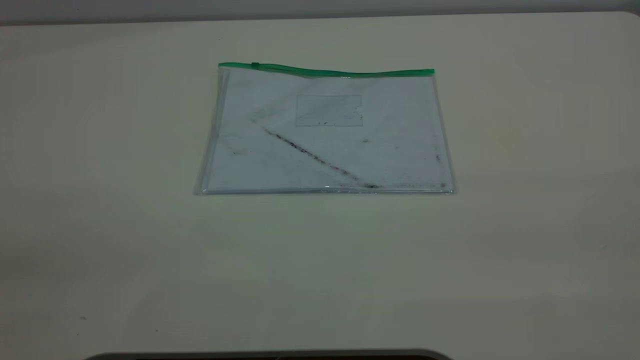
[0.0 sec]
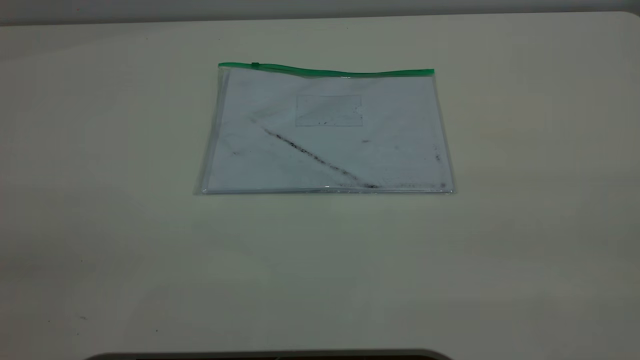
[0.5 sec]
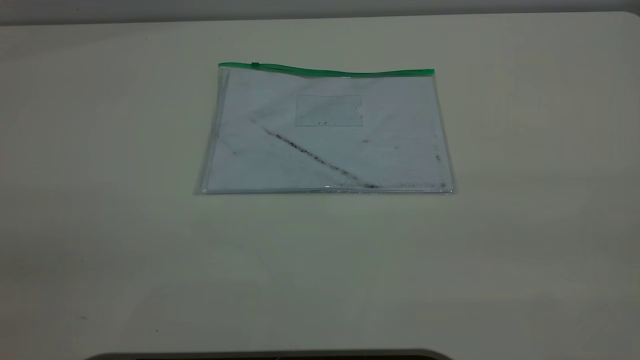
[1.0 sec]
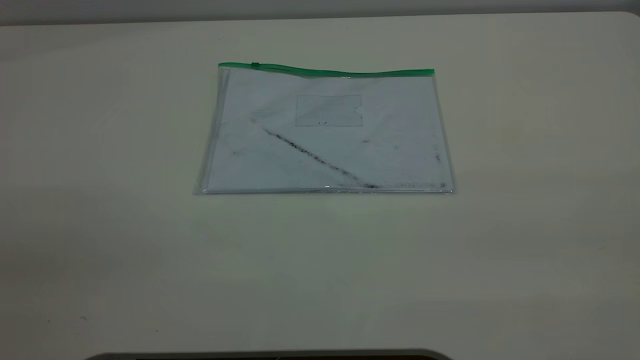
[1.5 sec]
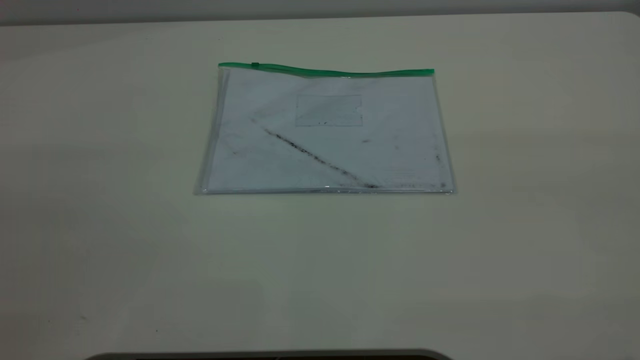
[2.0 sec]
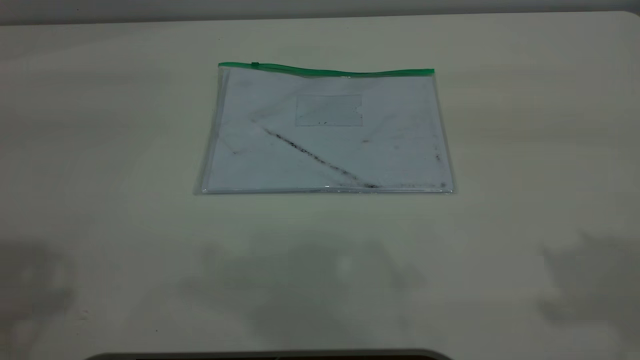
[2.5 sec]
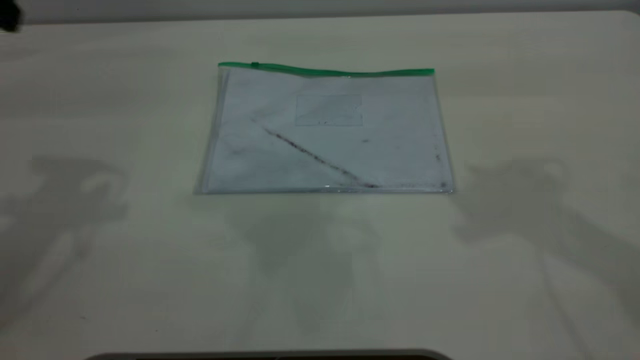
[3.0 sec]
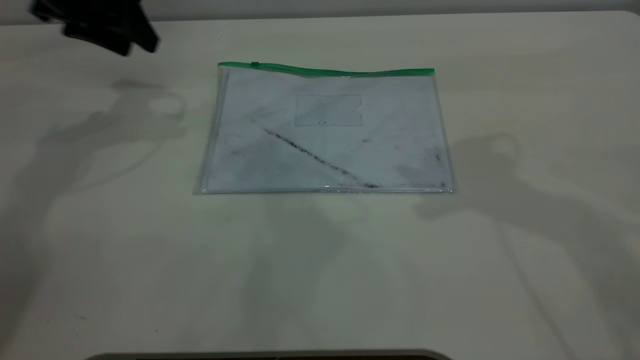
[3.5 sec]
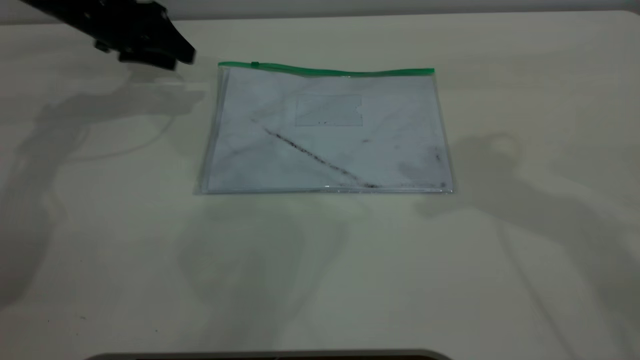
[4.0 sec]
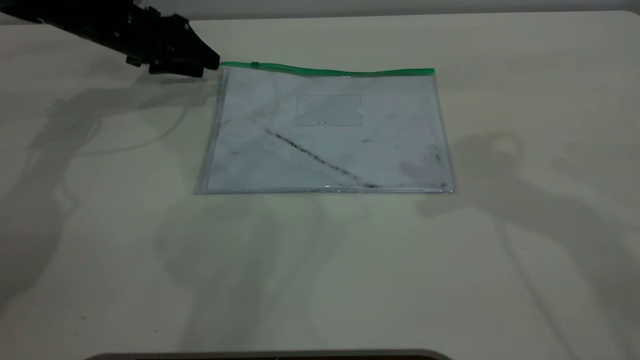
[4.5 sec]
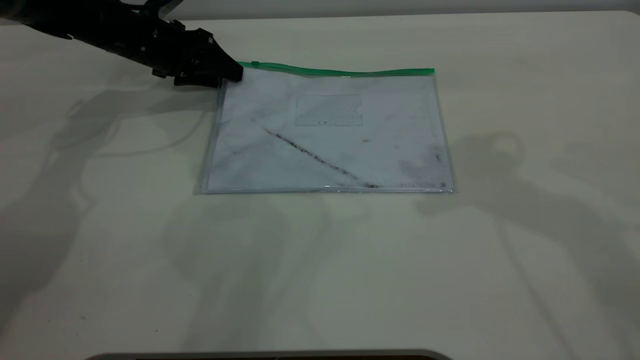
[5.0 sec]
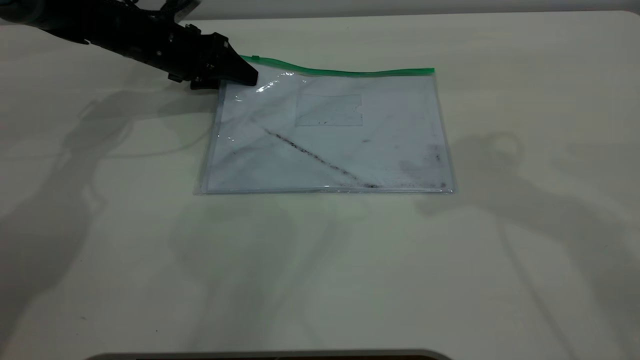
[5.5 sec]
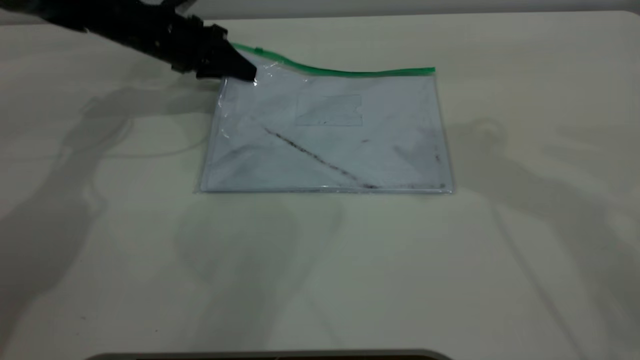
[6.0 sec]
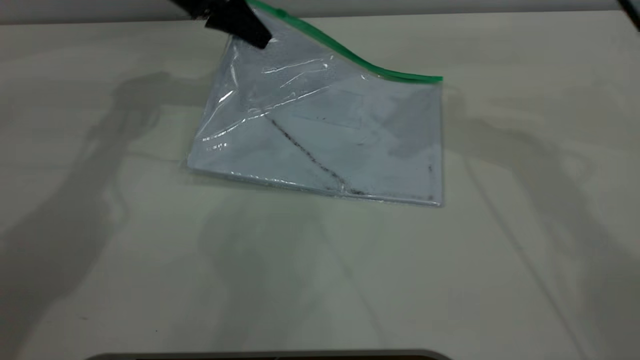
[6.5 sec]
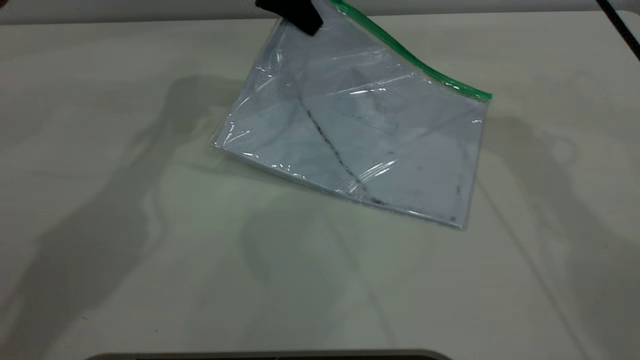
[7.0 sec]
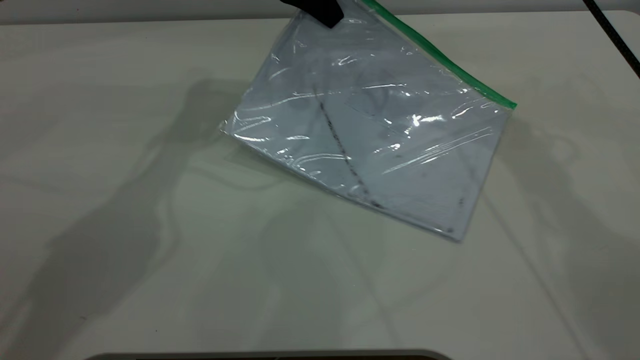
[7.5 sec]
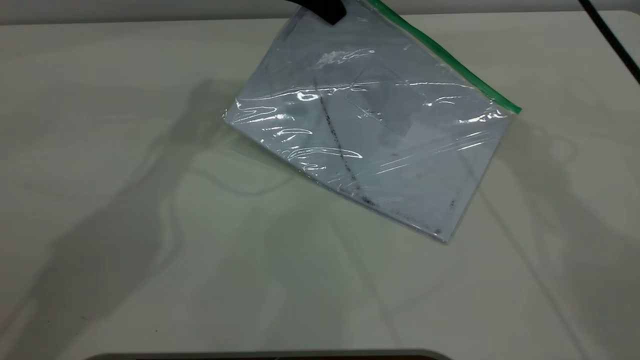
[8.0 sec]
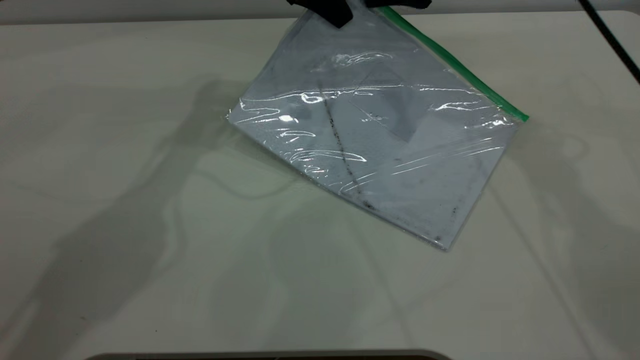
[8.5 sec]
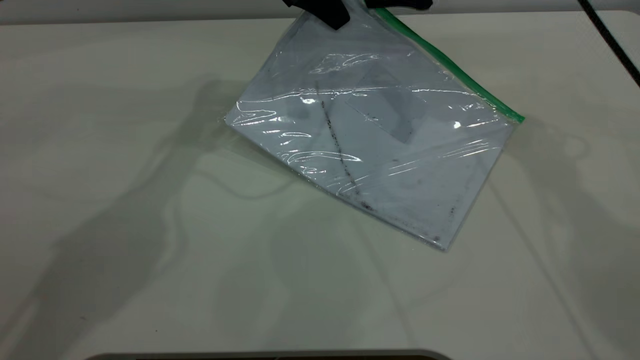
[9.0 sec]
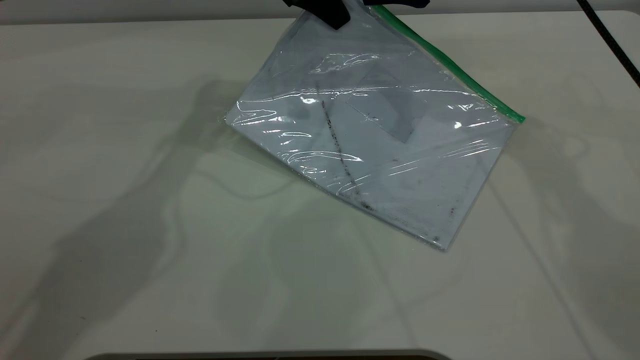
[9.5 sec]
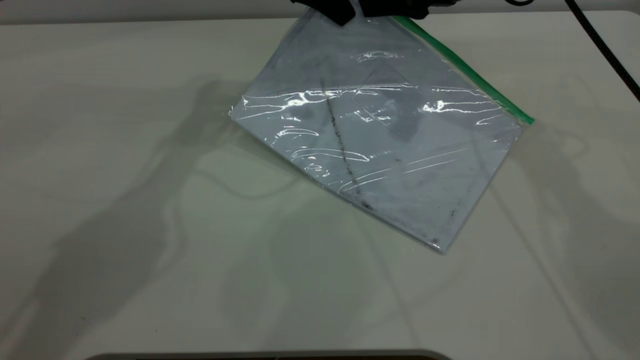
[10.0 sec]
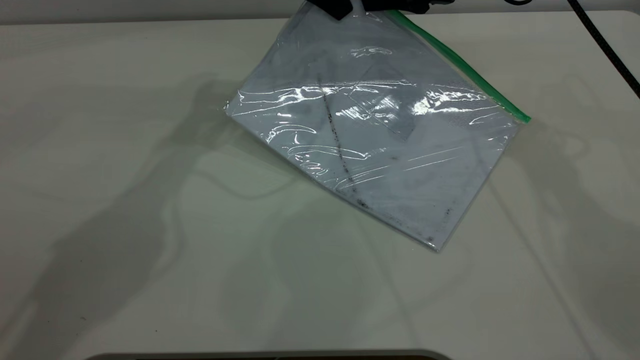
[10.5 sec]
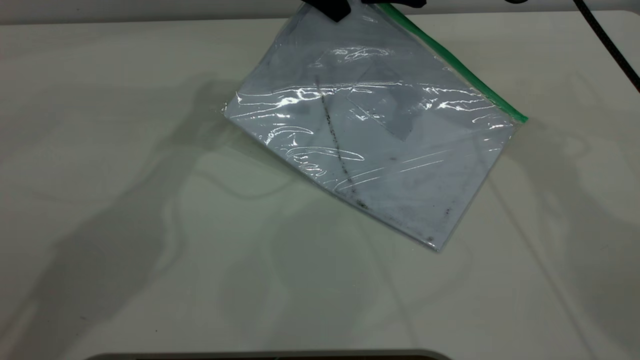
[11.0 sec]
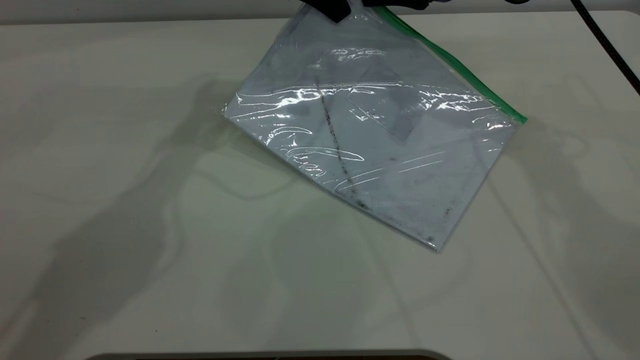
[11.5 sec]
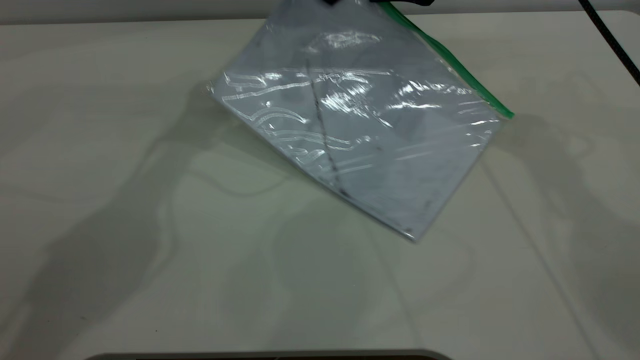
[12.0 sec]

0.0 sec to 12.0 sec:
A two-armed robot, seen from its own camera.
Step, 0.0 sec to 6.0 sec: Pick up the transparent plastic bag with the left gripper.
2.0 sec to 4.0 sec: The left gripper travels forward and downward by some 60 cm.
4.0 sec to 6.0 sec: The left gripper travels to the right by roughly 5 cm, and closes its fingers.
6.0 sec to 8.0 sec: The left gripper moves to the right and upward, some 20 cm. The right gripper moves forward and downward, roughly 10 cm.
8.0 sec to 10.0 sec: The grippers move only a little.
10.0 sec to 12.0 sec: The right gripper closes its fingers.

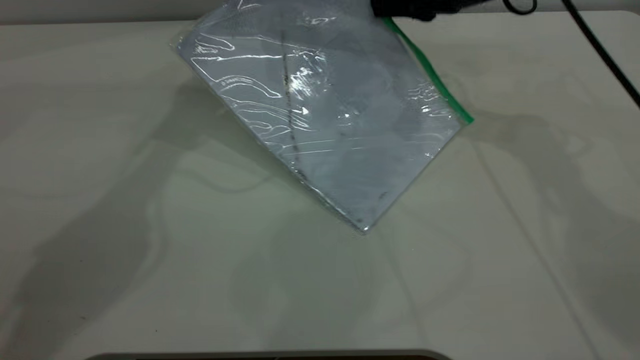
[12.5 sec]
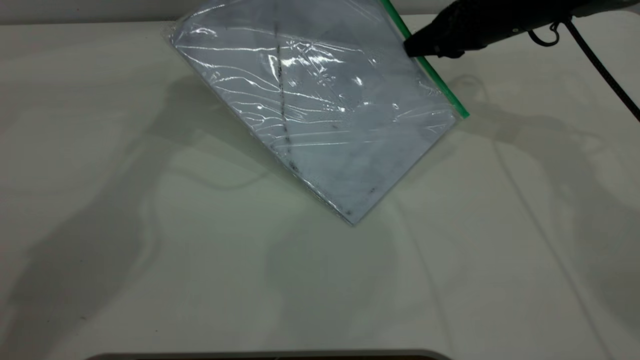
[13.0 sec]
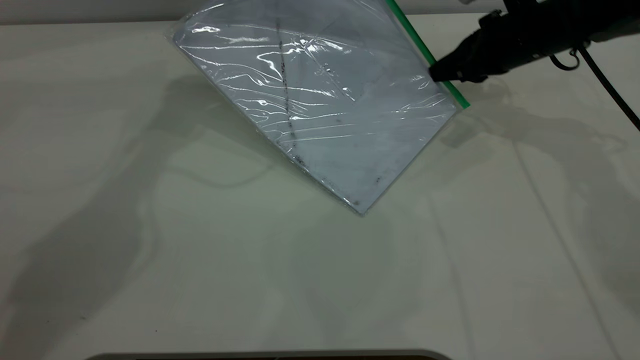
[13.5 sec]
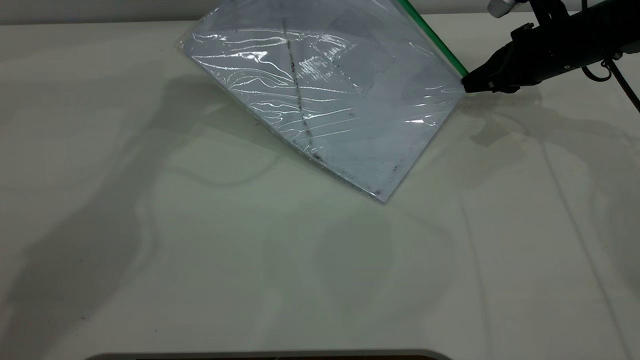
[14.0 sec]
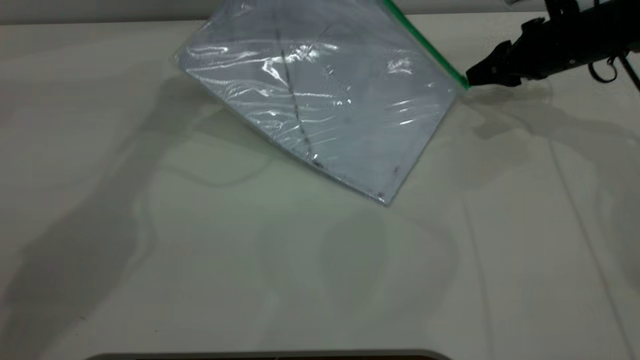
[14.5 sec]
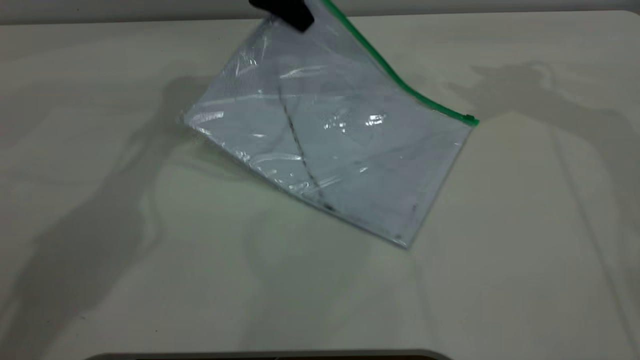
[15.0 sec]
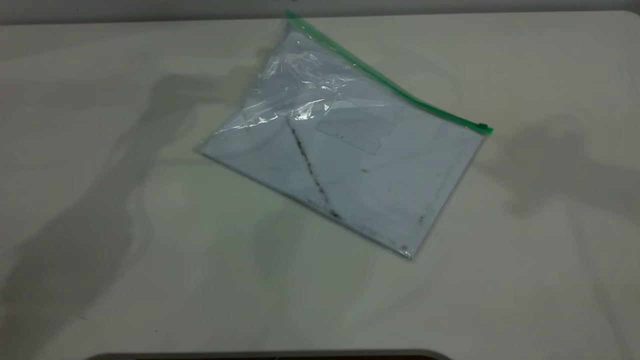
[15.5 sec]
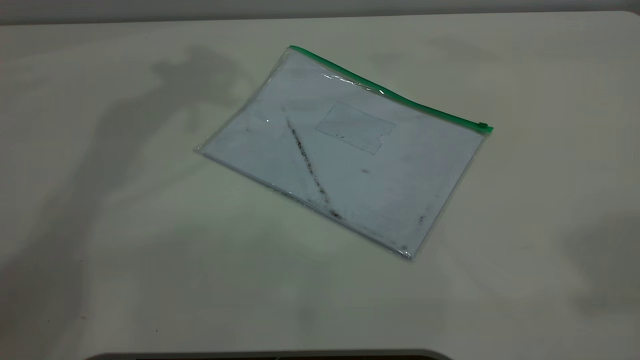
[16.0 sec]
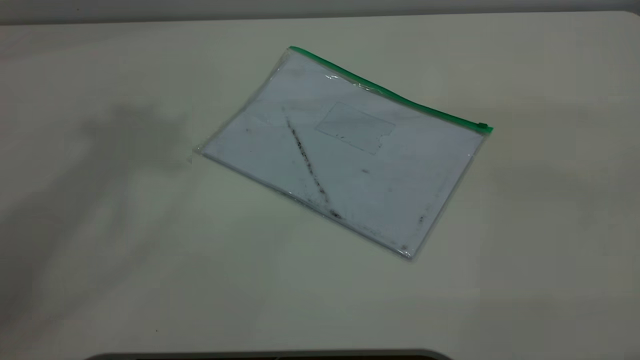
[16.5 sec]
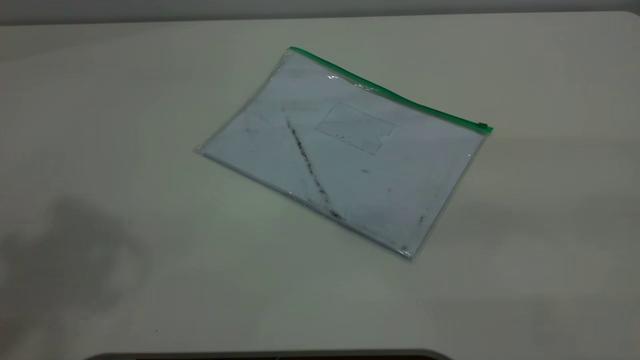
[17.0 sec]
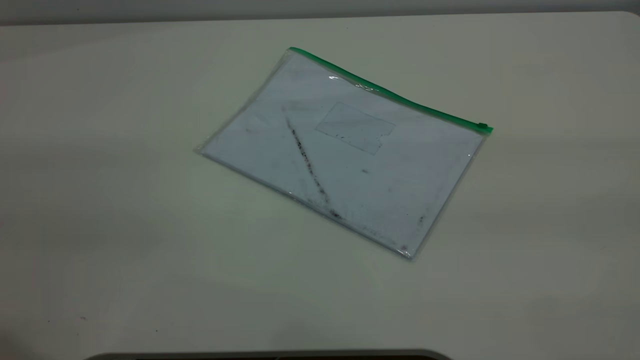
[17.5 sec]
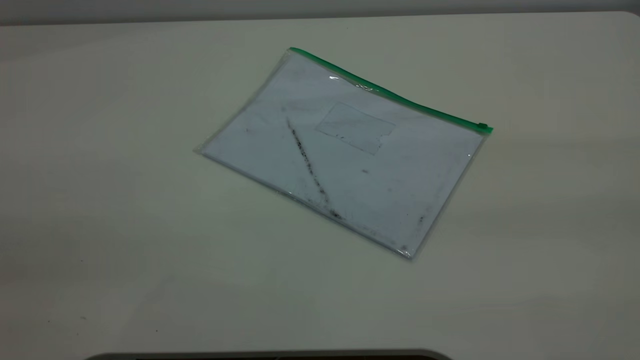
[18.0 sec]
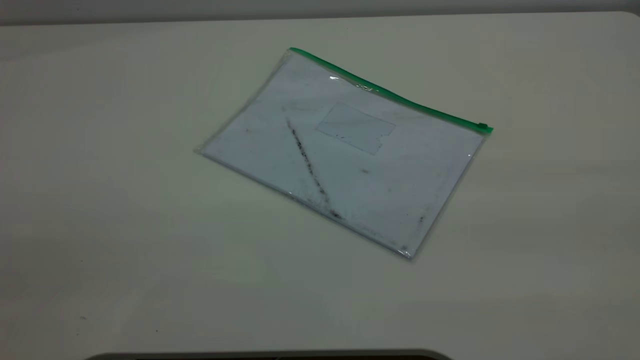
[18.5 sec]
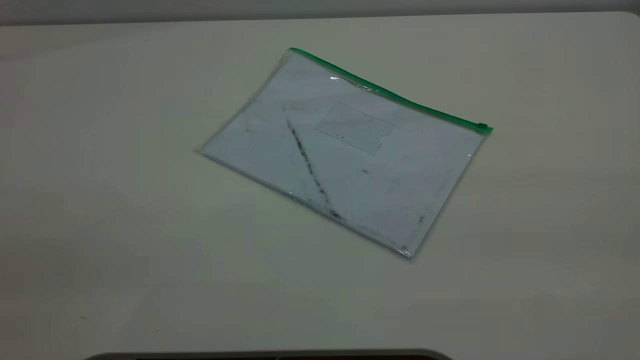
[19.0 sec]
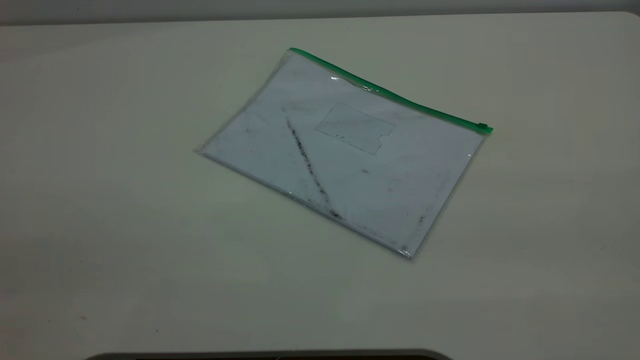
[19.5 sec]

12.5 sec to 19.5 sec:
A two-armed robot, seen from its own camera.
Step, 12.5 sec to 14.5 sec: Pulling up the zipper on the transparent plastic bag with the right gripper to close it.
12.5 sec to 14.5 sec: The right gripper moves to the right and downward, about 15 cm, and opens its fingers.
14.5 sec to 16.0 sec: The right gripper is displaced upward and backward by roughly 50 cm. The left gripper goes approximately 20 cm upward, and opens up.
